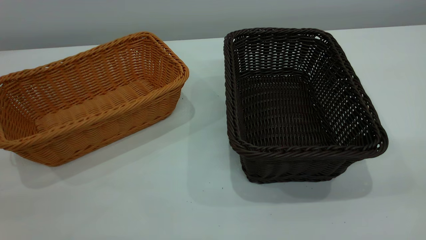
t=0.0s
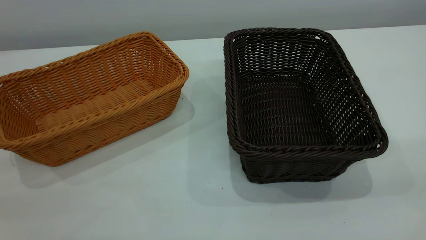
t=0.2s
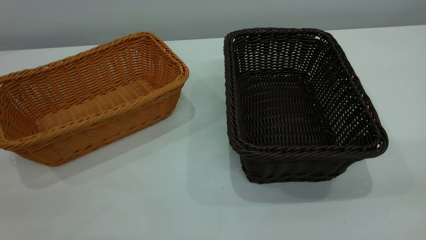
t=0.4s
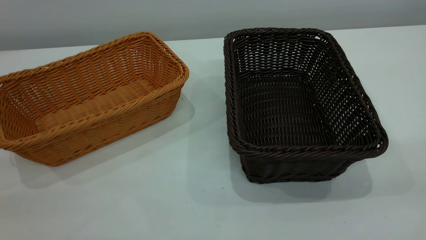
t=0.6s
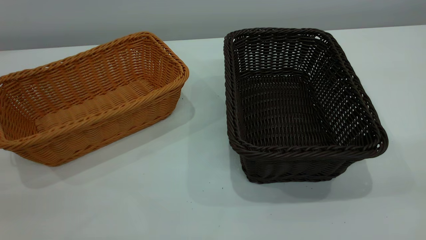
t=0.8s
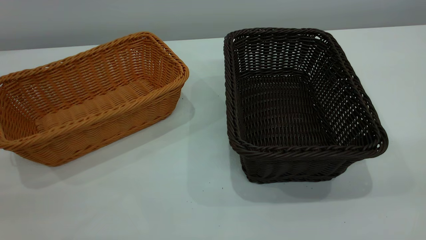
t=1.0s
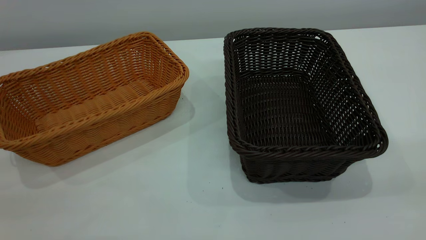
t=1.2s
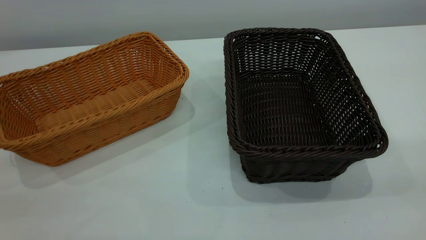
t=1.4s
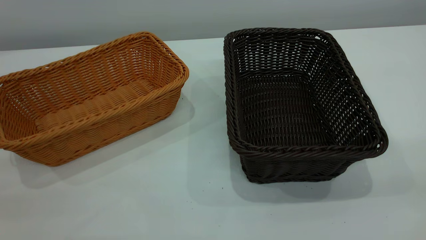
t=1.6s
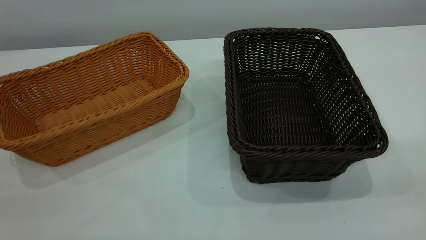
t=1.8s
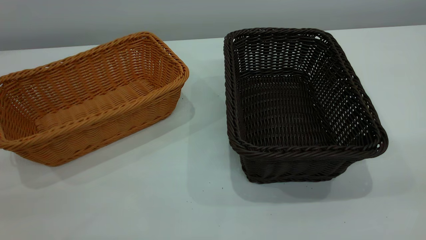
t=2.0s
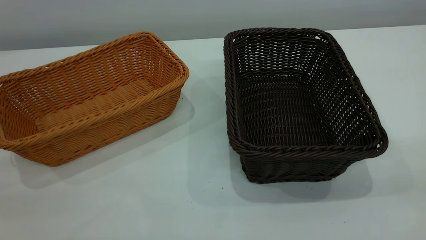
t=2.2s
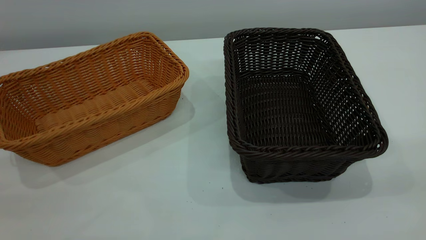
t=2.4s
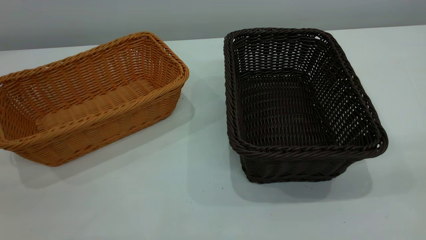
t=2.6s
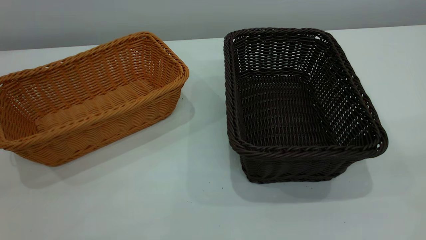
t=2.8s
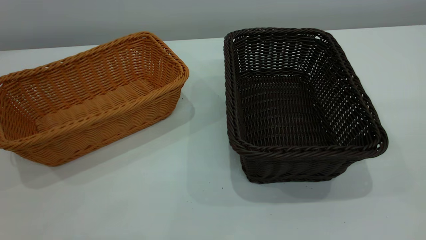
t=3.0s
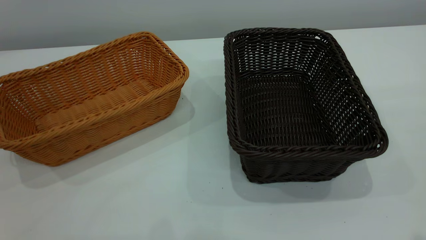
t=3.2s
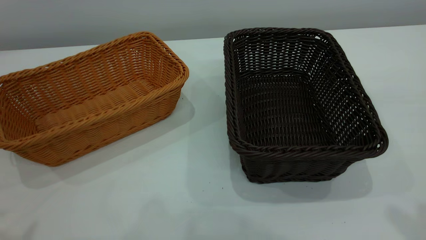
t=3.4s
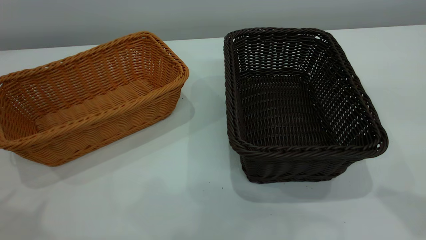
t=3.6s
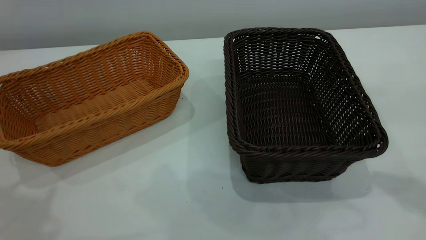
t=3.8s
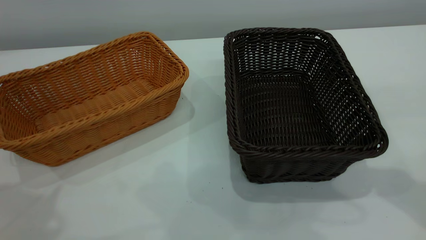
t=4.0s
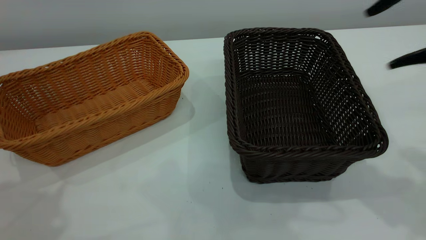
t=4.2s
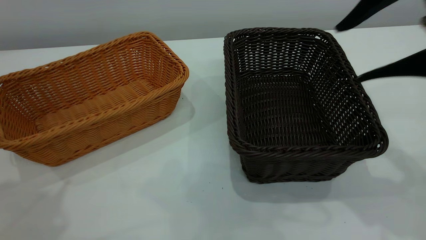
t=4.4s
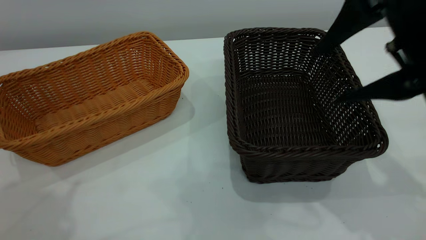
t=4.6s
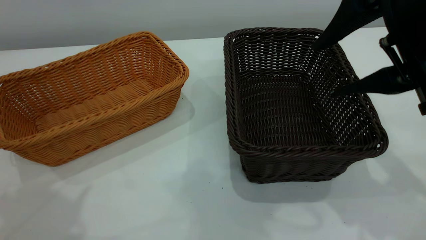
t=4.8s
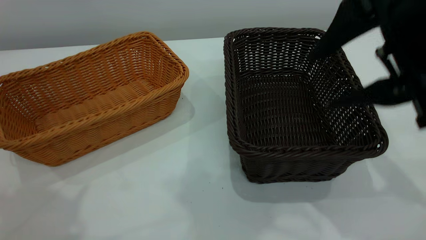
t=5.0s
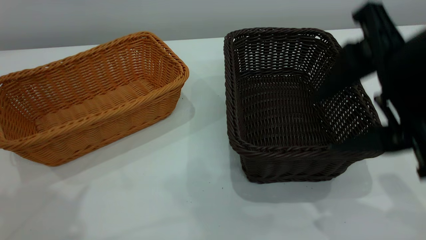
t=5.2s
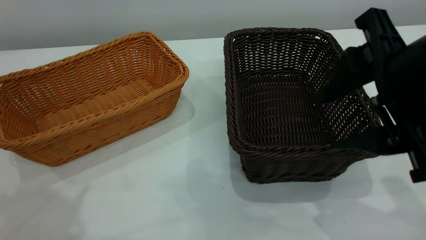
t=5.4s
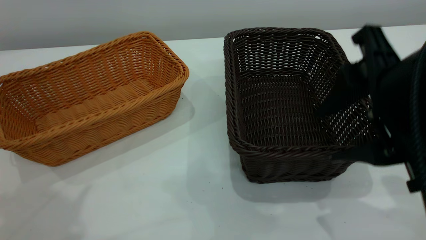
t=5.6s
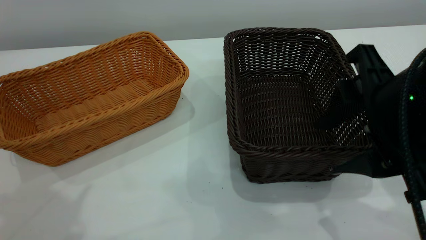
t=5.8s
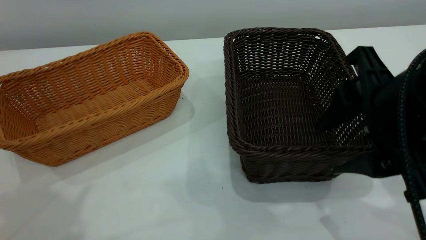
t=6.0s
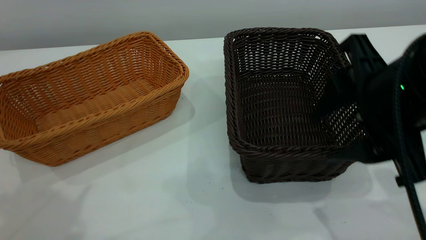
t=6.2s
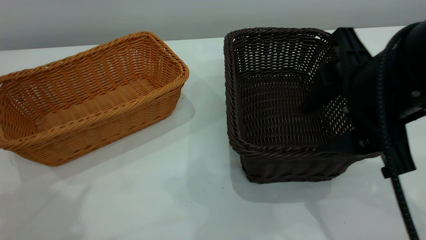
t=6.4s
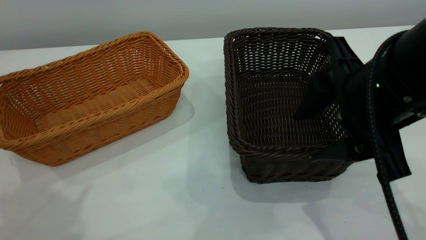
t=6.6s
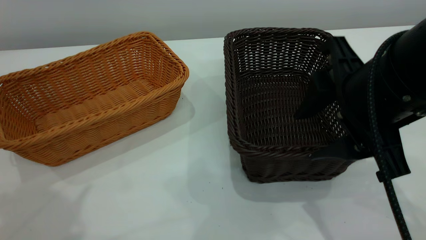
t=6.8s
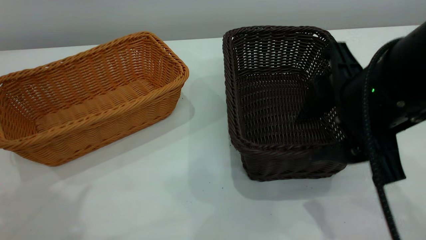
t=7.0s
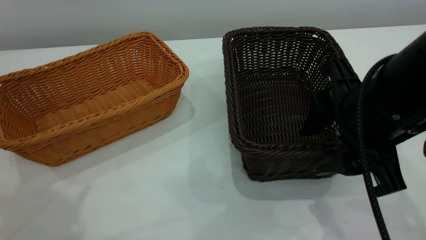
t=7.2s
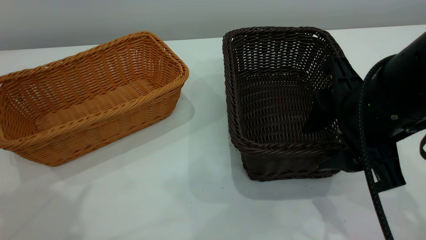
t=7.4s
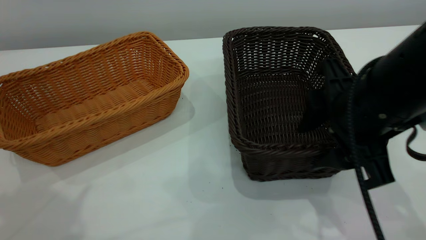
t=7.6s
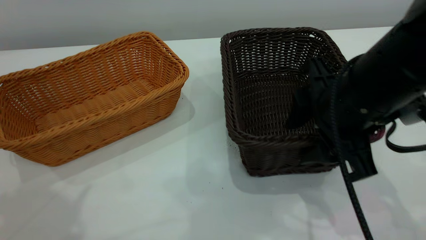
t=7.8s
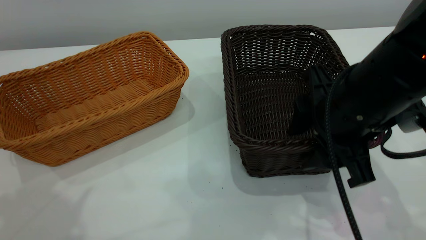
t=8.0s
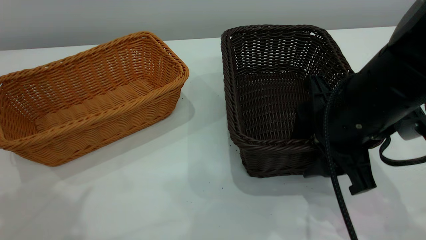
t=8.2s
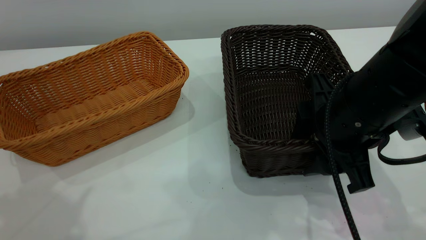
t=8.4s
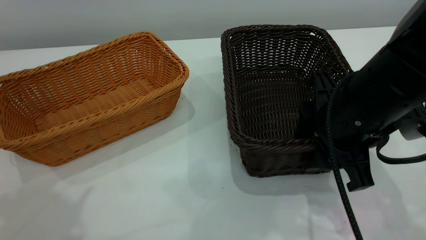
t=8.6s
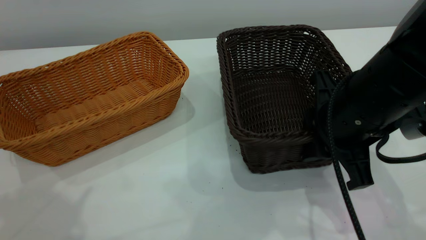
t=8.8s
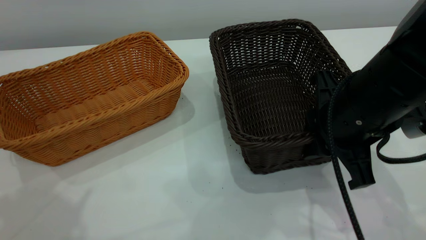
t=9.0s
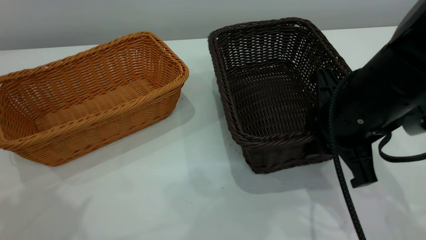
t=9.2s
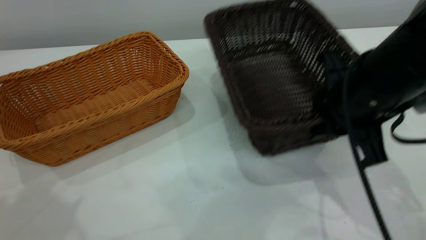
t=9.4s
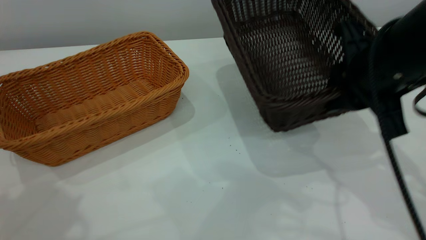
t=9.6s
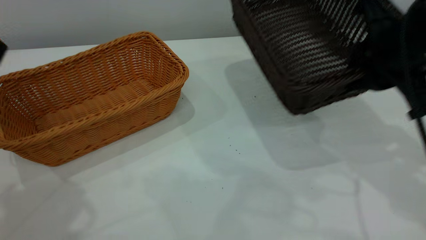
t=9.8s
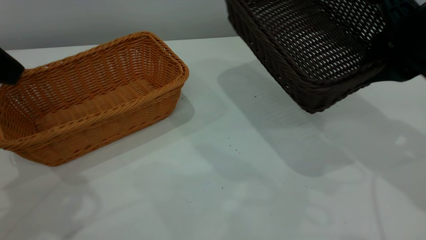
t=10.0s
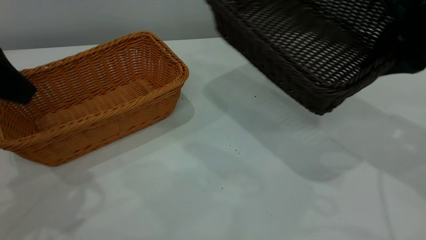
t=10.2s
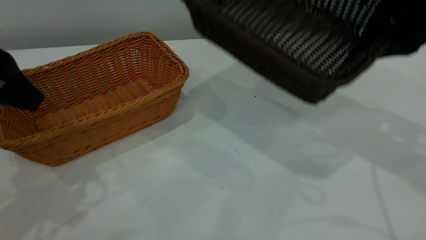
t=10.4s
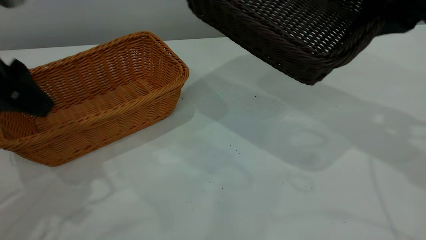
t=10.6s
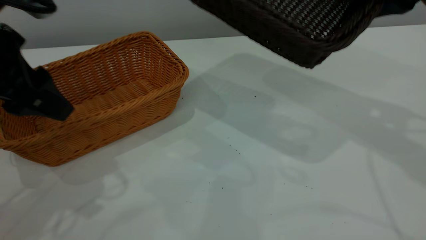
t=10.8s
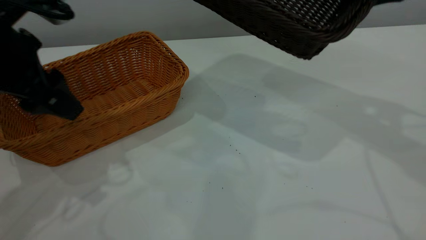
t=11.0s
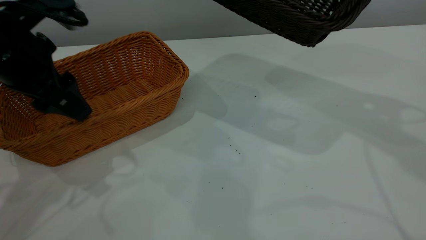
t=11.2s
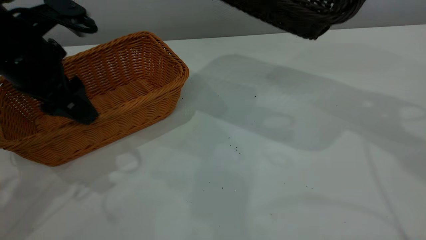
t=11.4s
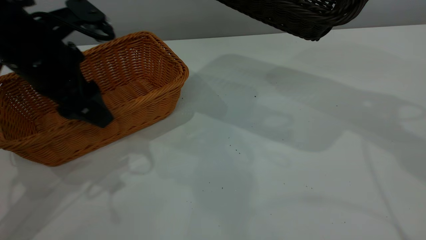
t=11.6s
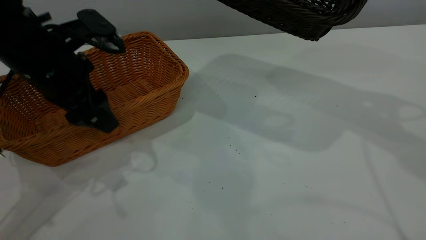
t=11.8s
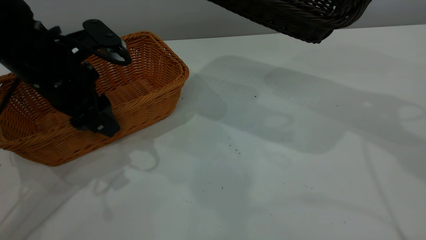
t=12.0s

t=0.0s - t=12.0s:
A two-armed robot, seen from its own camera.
Task of the whole recording: the left gripper grasp the brown basket and place it in the center of the table, the right gripper grasp the black basket and place it inside the brown one.
Step, t=0.0s - t=9.6s: Pick up the light basket with the right gripper.
t=0.0s - t=1.6s: Neither gripper changes place.
t=3.0s - t=4.4s: The right gripper shifts about 20 cm forward, downward and to the left.
t=4.4s - t=6.0s: The right gripper is displaced downward by approximately 5 cm.
t=6.0s - t=7.6s: The right gripper changes place by some 5 cm.
t=7.6s - t=9.0s: The right gripper closes up.
t=9.0s - t=10.4s: The right gripper is displaced upward, to the right and forward by some 15 cm. The left gripper is displaced downward and forward by about 10 cm.
t=10.4s - t=12.0s: The right gripper moves upward, about 5 cm; the left gripper shifts approximately 15 cm downward, forward and to the right.

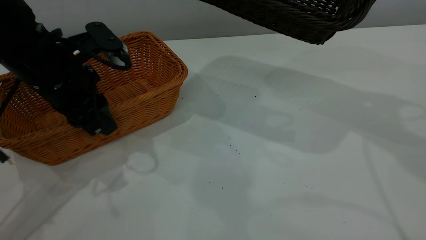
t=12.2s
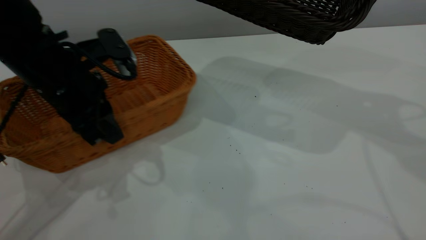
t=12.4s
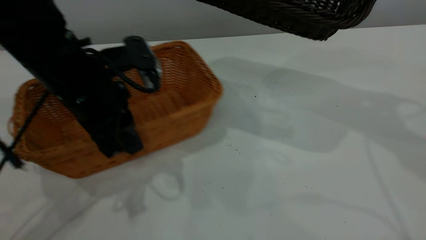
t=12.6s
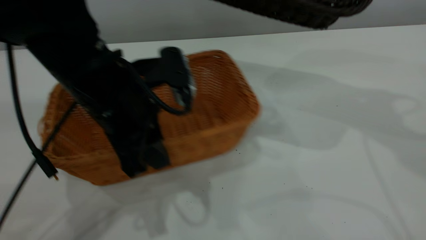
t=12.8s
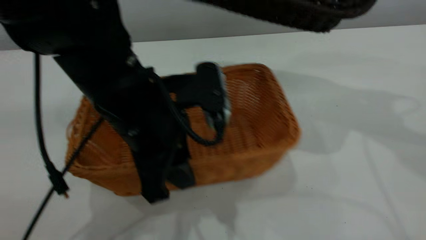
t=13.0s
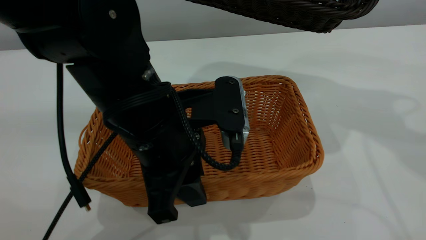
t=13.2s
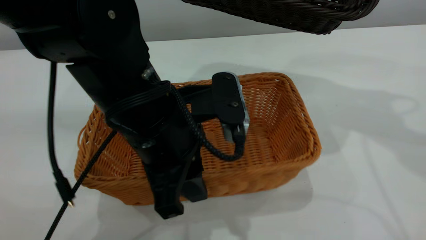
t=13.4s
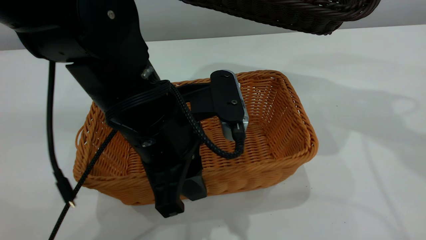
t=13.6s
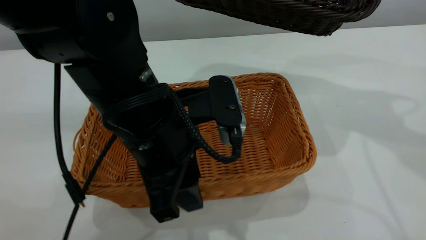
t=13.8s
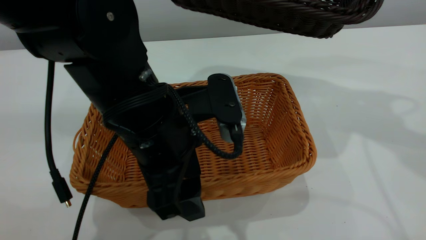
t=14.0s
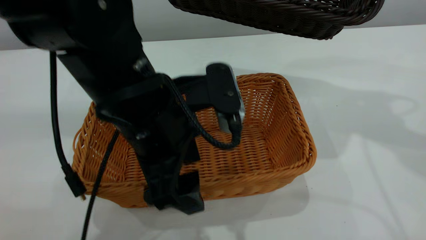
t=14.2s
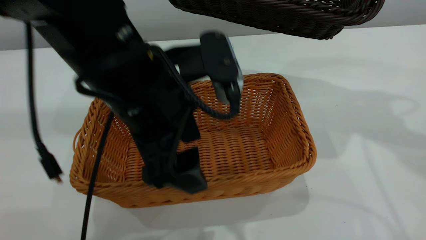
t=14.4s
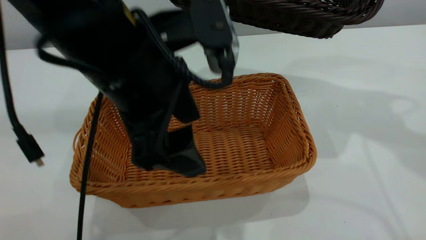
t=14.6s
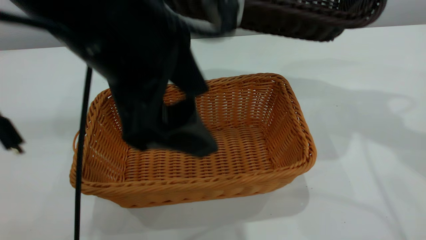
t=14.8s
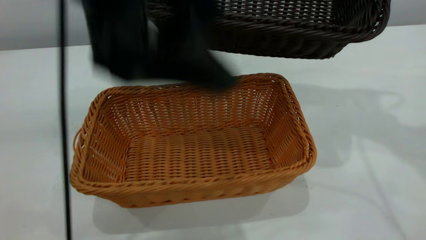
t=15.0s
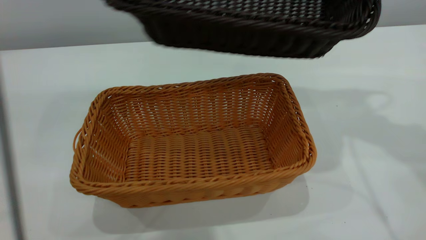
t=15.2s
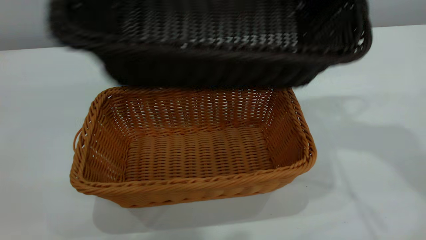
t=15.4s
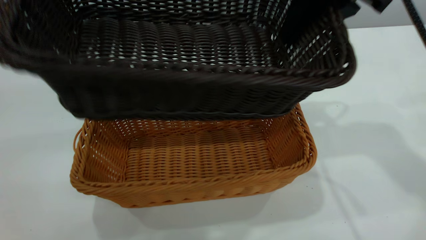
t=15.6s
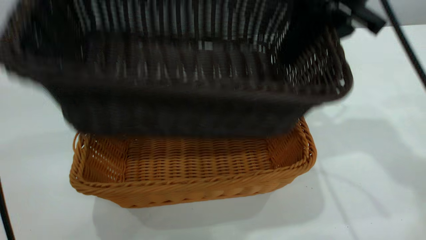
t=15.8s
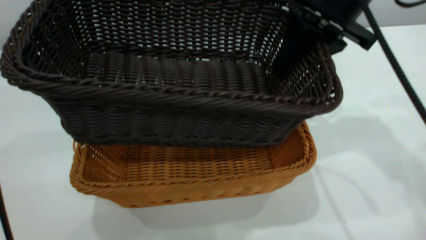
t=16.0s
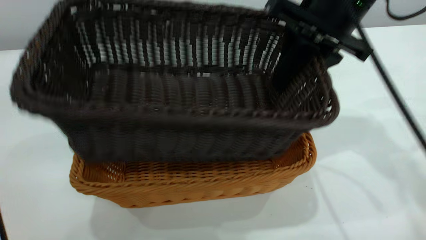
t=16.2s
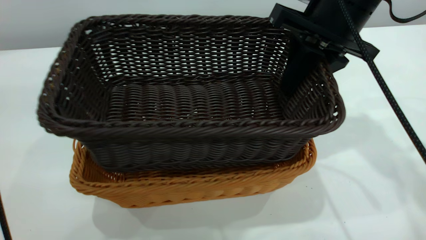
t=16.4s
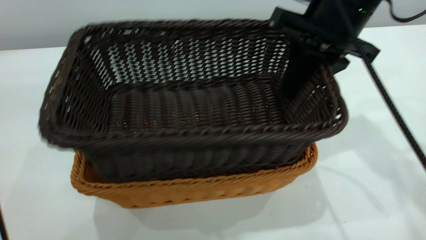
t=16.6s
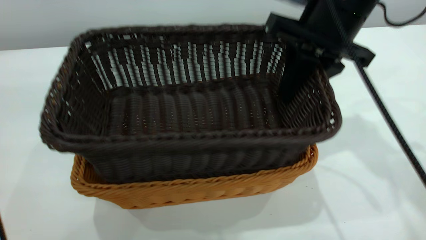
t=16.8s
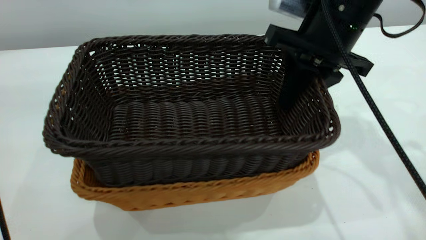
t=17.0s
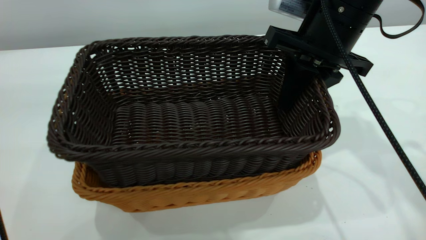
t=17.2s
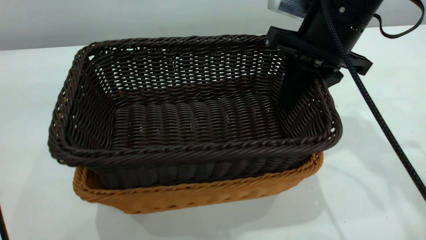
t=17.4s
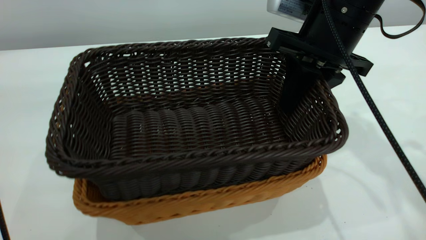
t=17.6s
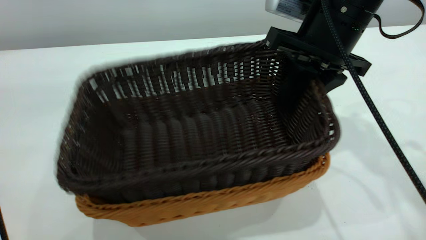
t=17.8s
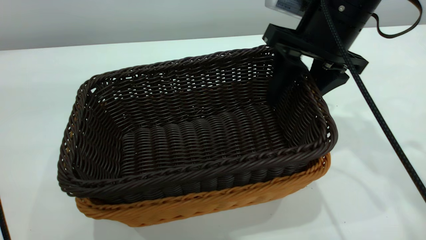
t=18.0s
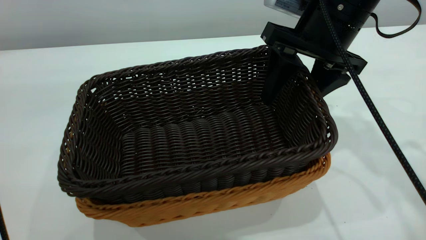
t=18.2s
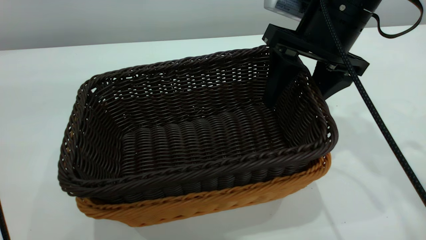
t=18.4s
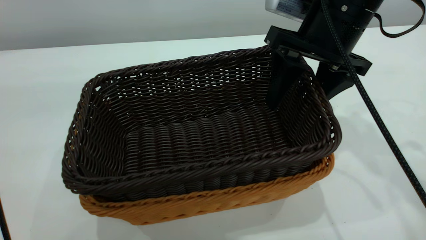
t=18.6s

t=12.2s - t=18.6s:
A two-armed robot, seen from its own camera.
Task of the whole recording: the left gripper grasp the brown basket and place it in the center of the table, the right gripper grasp the black basket and place it inside the brown one.
Step, t=12.2s - t=14.6s: Place the light-colored basket in the center.
t=12.2s - t=13.8s: The left gripper heads to the right and backward, covering some 15 cm.
t=13.8s - t=15.4s: The left gripper heads upward, covering some 30 cm, and opens up. The right gripper goes some 5 cm to the left.
t=15.4s - t=17.0s: The right gripper is displaced downward by roughly 10 cm.
t=17.0s - t=18.6s: The right gripper opens its fingers.
